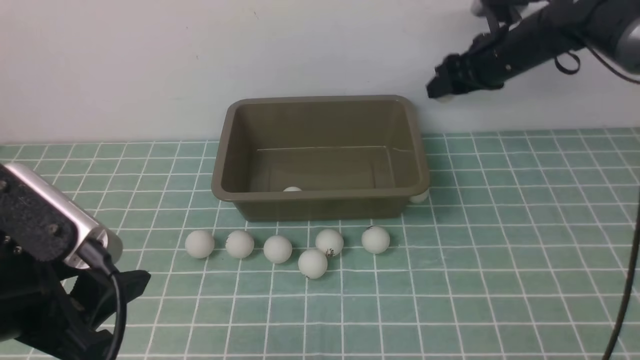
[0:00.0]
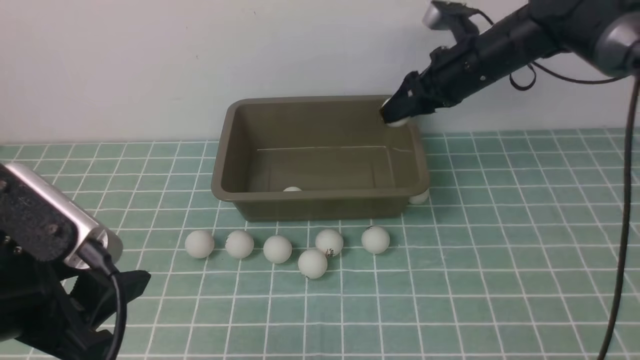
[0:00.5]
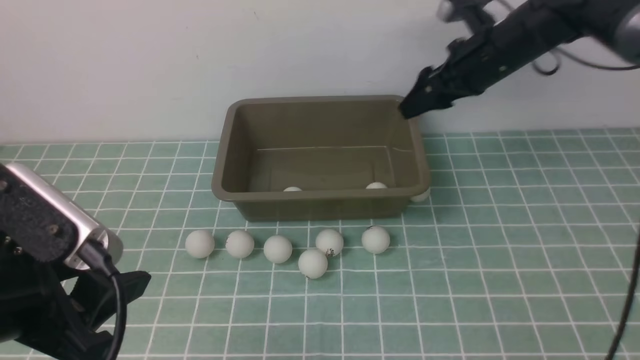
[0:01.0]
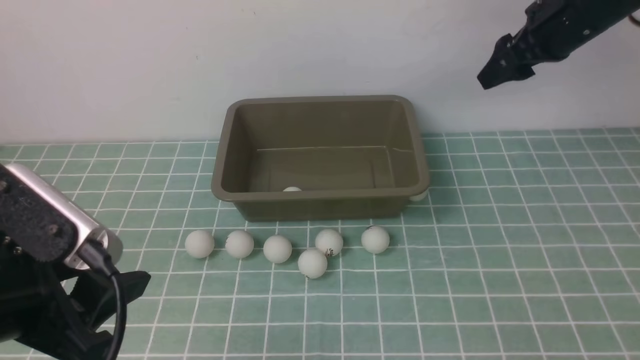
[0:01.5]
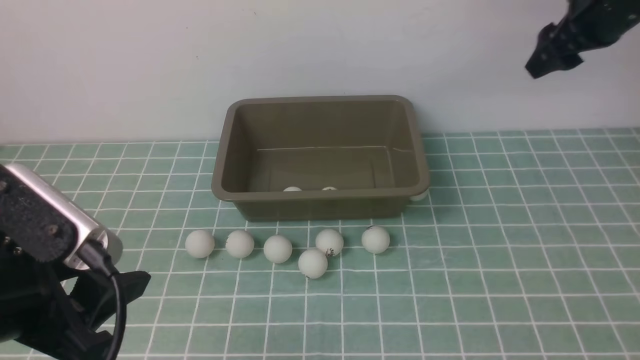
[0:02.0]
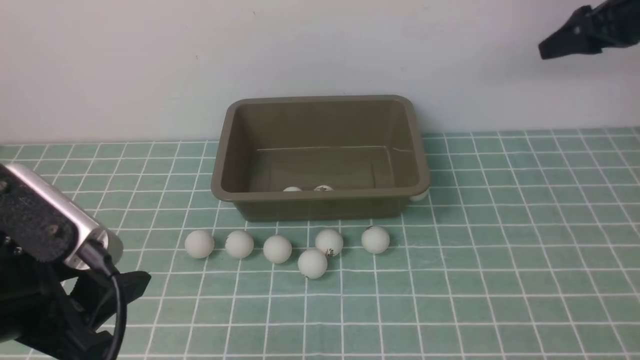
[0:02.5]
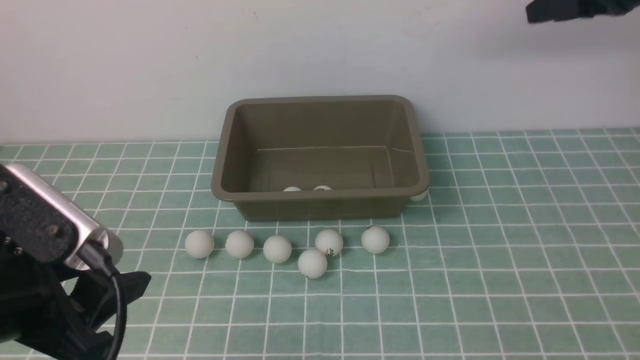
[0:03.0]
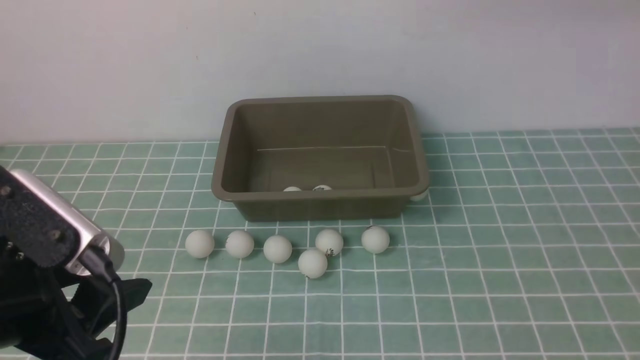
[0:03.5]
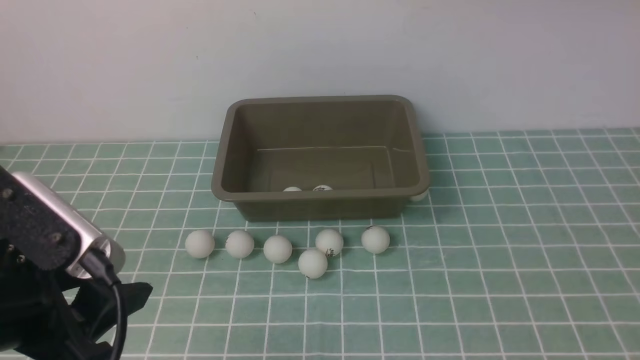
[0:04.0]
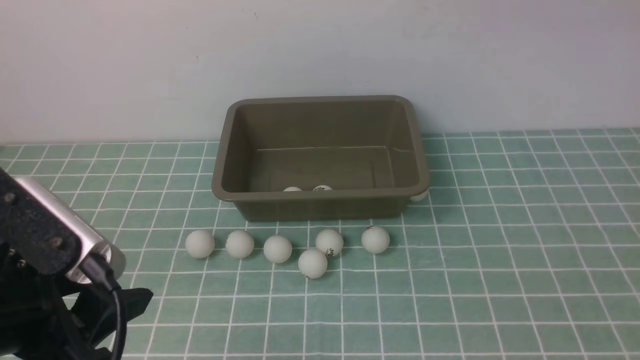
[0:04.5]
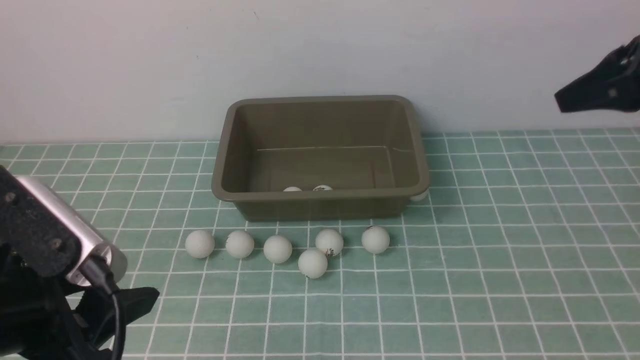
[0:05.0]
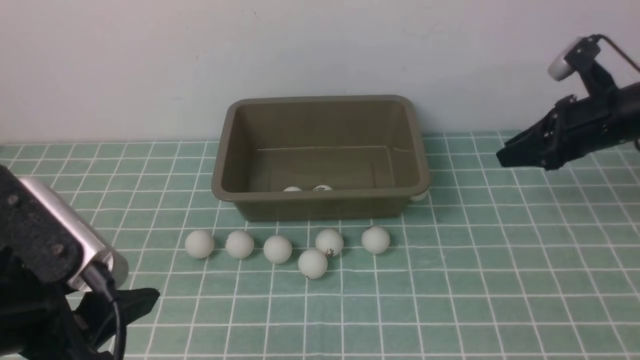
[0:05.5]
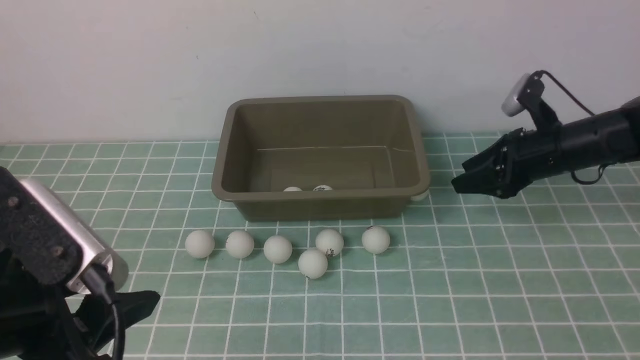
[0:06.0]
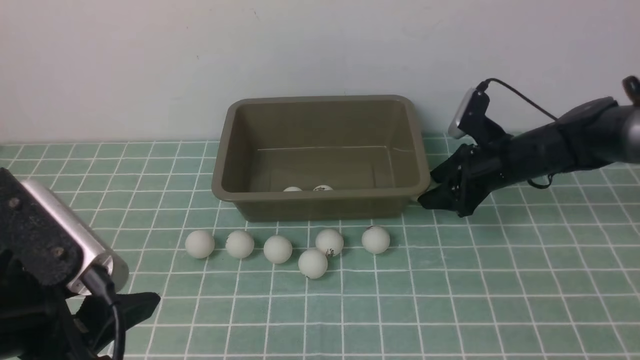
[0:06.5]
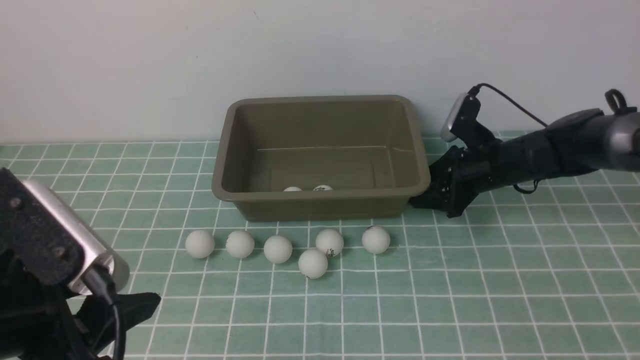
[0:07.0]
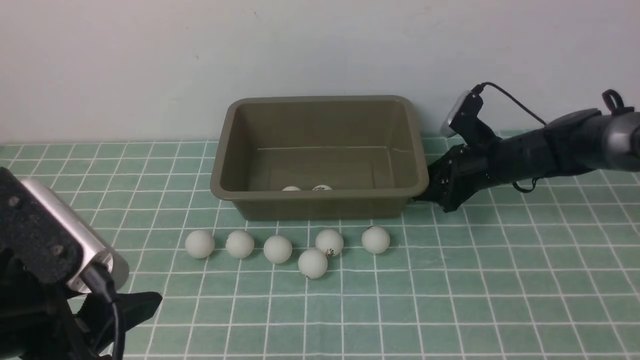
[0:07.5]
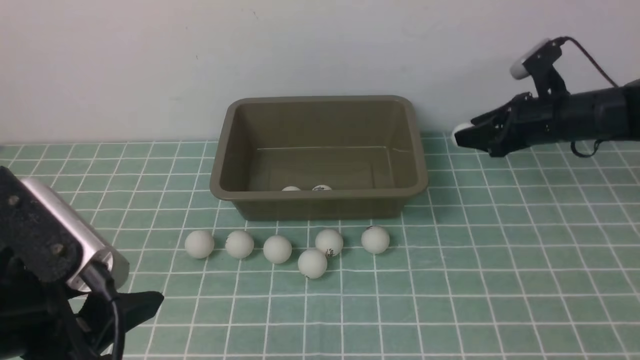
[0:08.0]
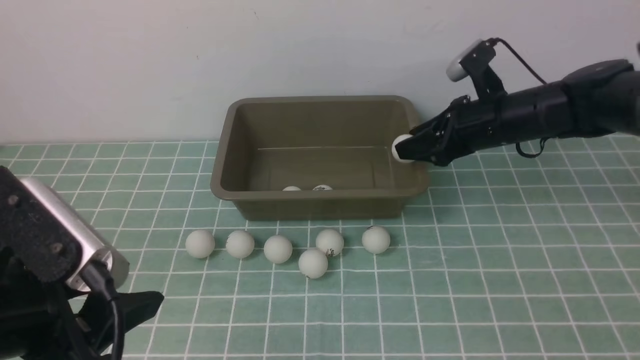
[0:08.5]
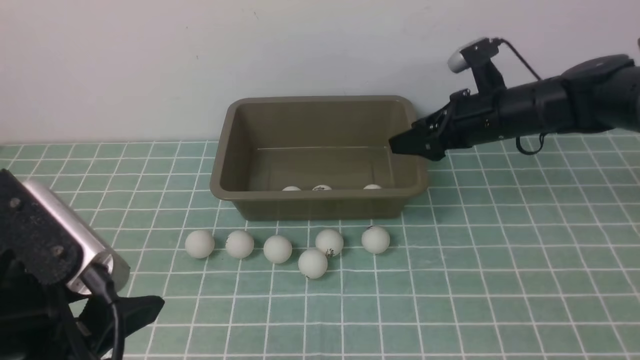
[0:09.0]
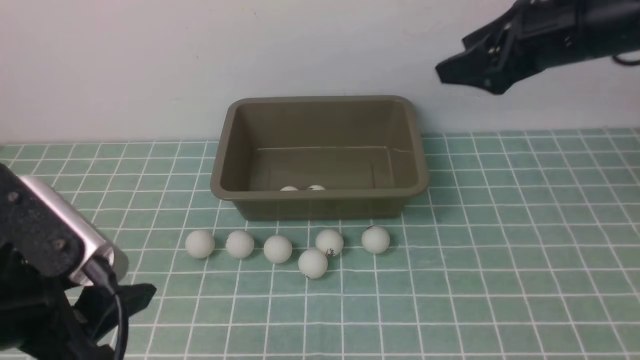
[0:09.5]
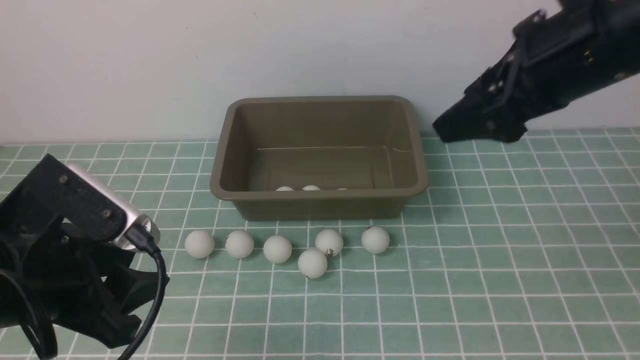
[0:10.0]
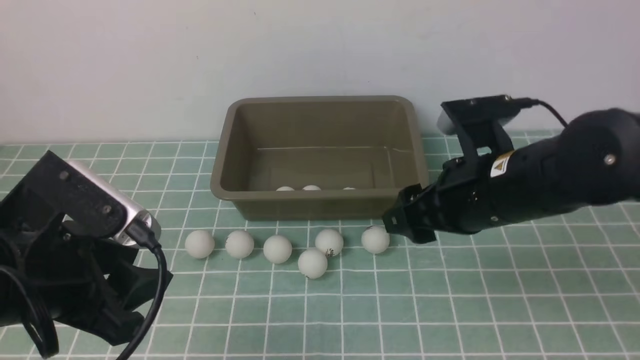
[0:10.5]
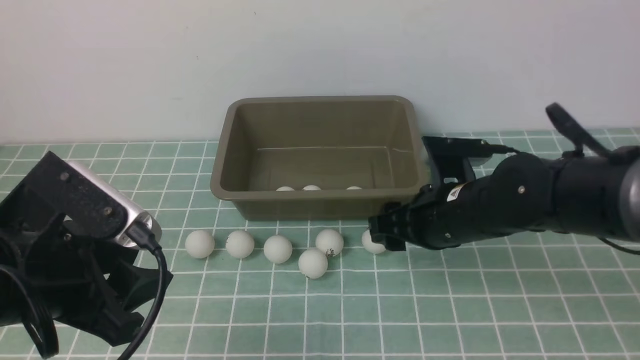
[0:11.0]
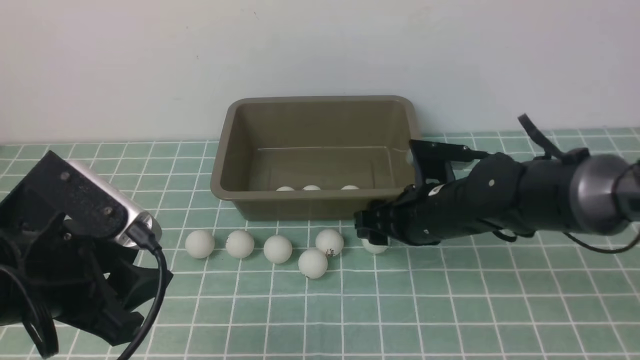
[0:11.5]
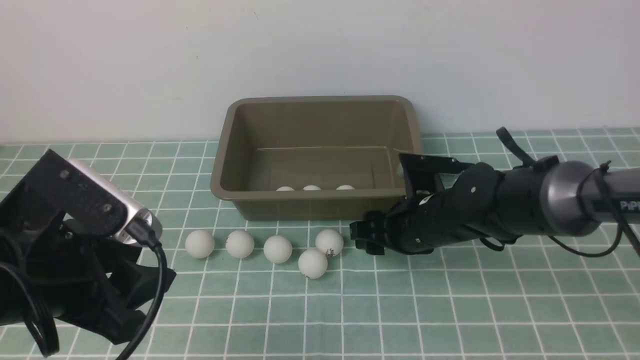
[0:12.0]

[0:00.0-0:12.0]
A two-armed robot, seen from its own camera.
Step, 0:00.0 to 0:00.5: use the right arm to put the table tennis ball into the box.
Step, 0:01.0 to 0:07.5: use the right arm to clamp the table tennis ball closest to it.
Step, 0:08.0 to 0:08.5: use the right arm to put the table tennis ball into the box.
0:00.0 to 0:02.0: The right gripper heads upward, to the right and backward, covering about 15 cm.
0:02.0 to 0:04.0: The right gripper shifts about 25 cm upward and backward.
0:04.0 to 0:06.0: The right gripper goes about 35 cm downward, and closes, then opens again.
0:06.0 to 0:08.0: The right gripper opens and closes again.
0:08.0 to 0:10.0: The right gripper moves backward, upward and to the left, some 25 cm, and opens up.
0:10.0 to 0:12.0: The right gripper travels downward by about 20 cm, and closes up.

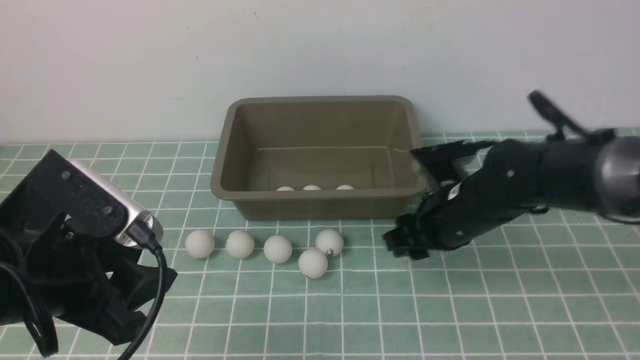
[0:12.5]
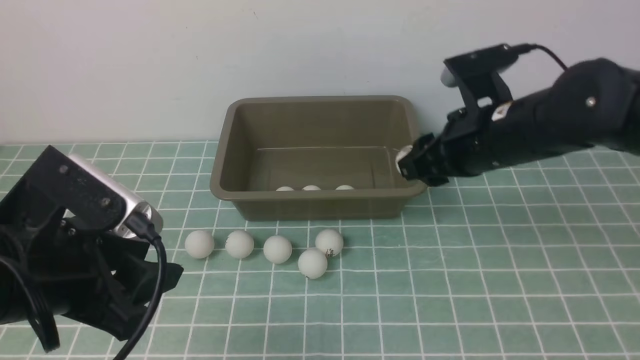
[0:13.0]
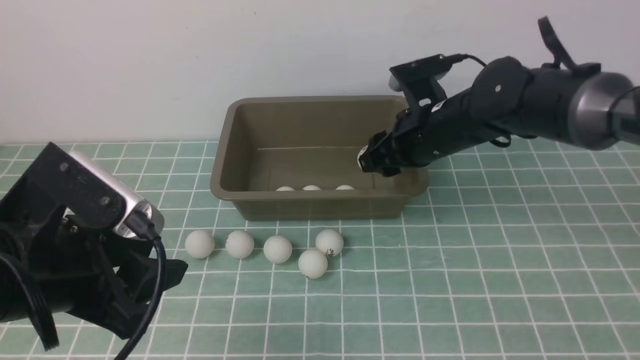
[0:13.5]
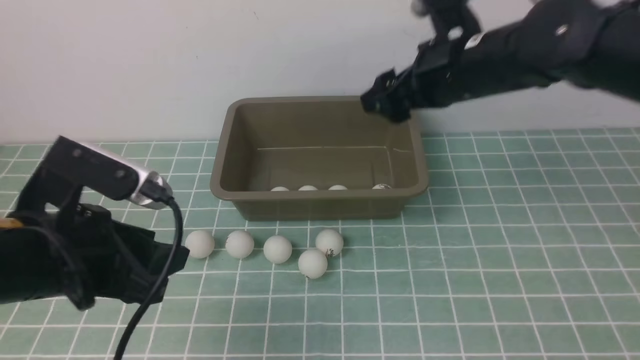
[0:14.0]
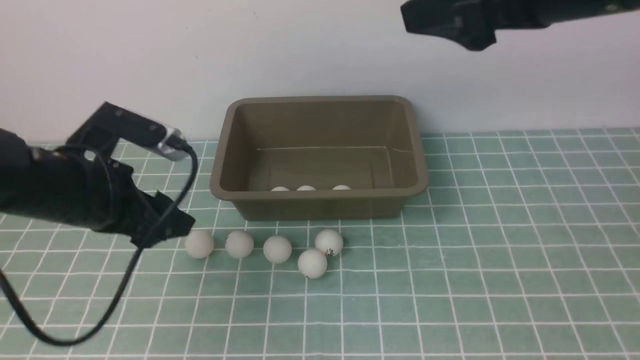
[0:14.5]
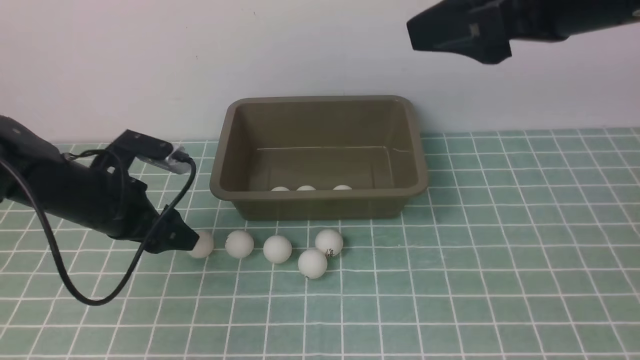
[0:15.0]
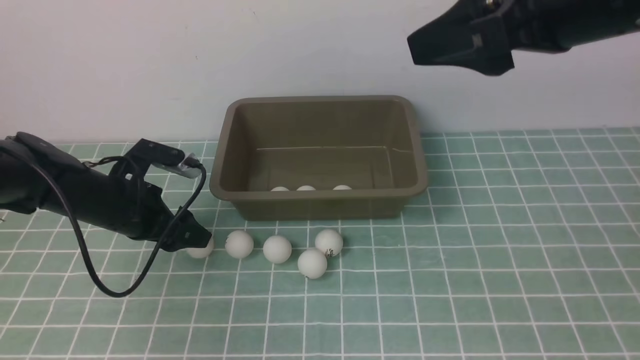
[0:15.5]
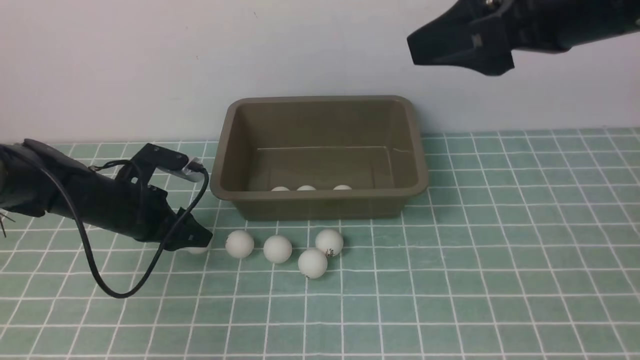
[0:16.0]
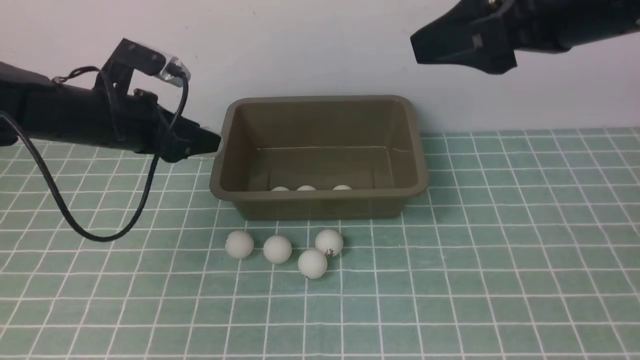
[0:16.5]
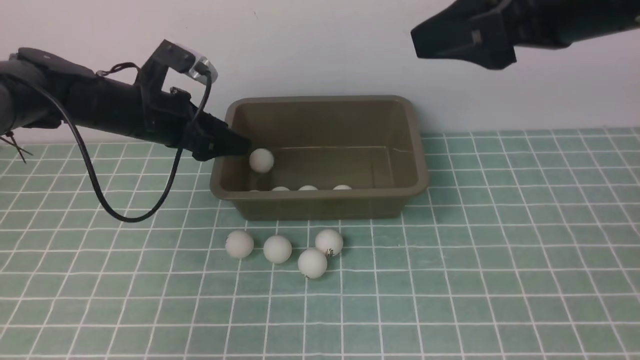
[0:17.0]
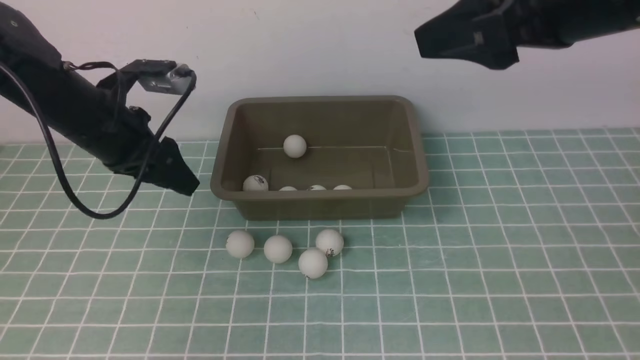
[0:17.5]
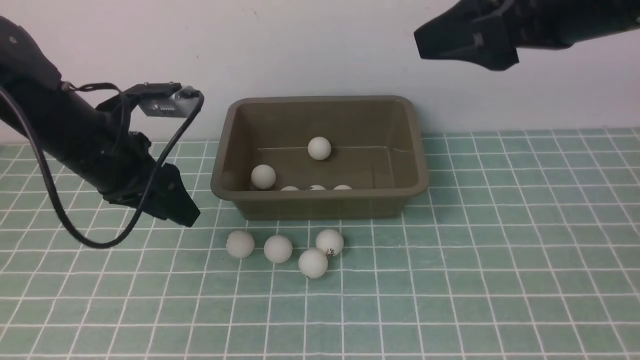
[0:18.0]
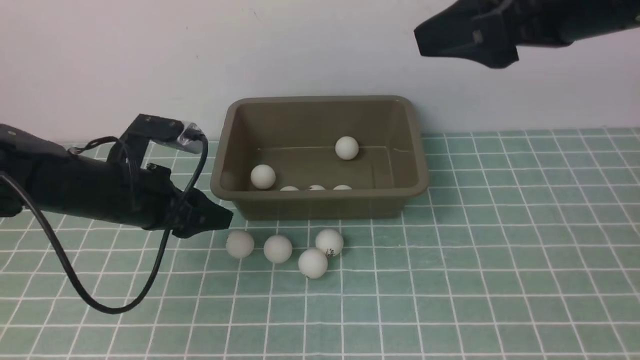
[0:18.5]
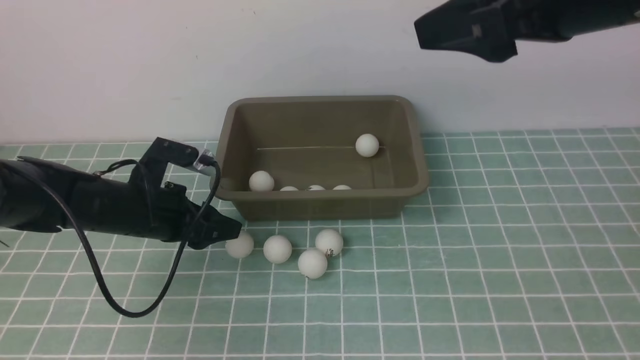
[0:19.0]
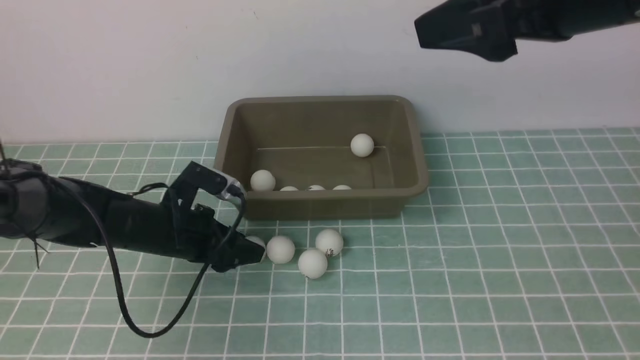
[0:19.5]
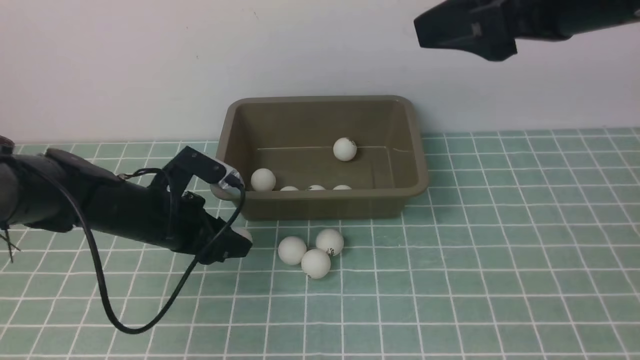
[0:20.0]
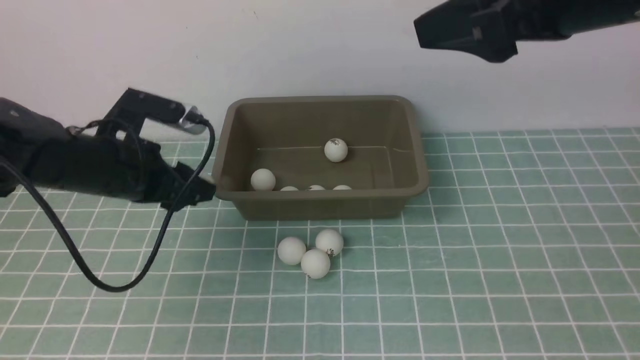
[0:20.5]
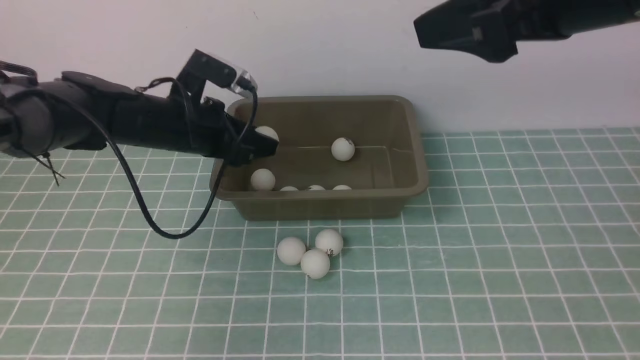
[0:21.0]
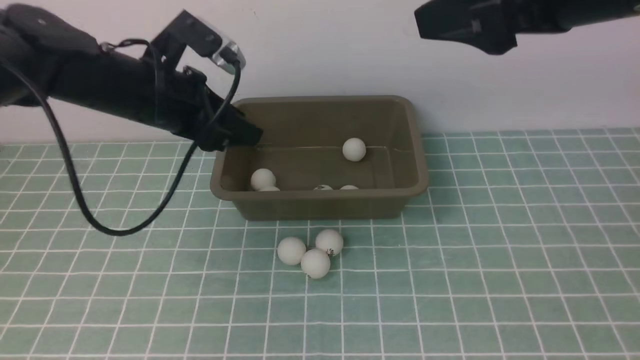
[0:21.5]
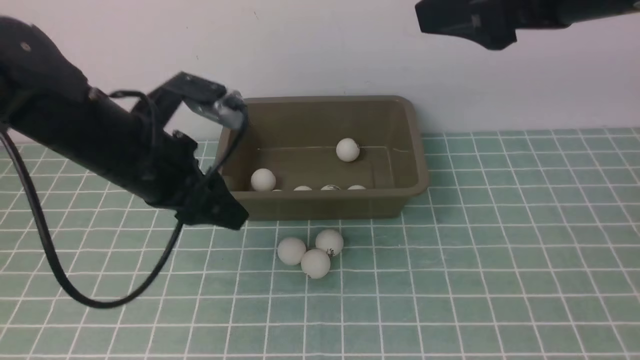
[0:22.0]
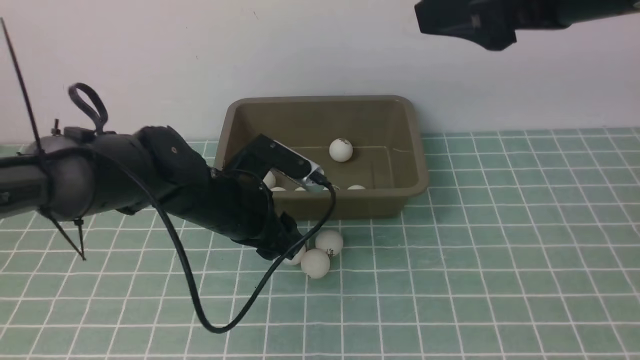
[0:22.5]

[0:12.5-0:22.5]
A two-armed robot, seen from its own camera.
Step, 0:12.5 to 0:13.5: use the right arm to put the table tennis ball into the box.
Step, 0:14.0 to 0:16.0: use the left arm to clamp the table tennis ball closest to it.
Step, 0:16.5 to 0:17.0: use the left arm to put the table tennis ball into the box.
Step, 0:17.5 to 0:20.0: use the left arm to clamp the table tennis ball closest to it.
Step, 0:20.5 to 0:21.0: use the left arm to put the table tennis ball into the box.
0:12.5 to 0:14.5: The left gripper moves forward, approximately 15 cm. Meanwhile the right gripper heads upward, covering some 25 cm, and opens its fingers.
0:14.5 to 0:16.5: The left gripper heads forward, covering roughly 10 cm.
0:16.5 to 0:18.5: The left gripper moves backward and downward, roughly 10 cm.
0:18.5 to 0:20.5: The left gripper moves upward, some 5 cm.
0:20.5 to 0:22.5: The left gripper is displaced to the right by roughly 10 cm.
